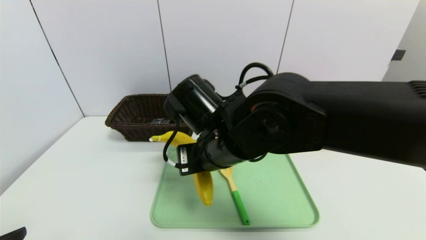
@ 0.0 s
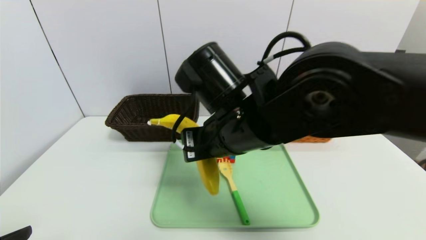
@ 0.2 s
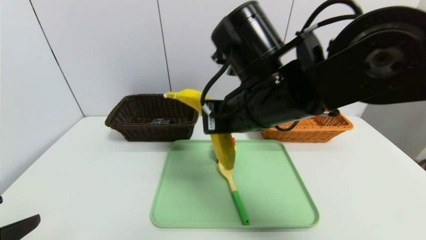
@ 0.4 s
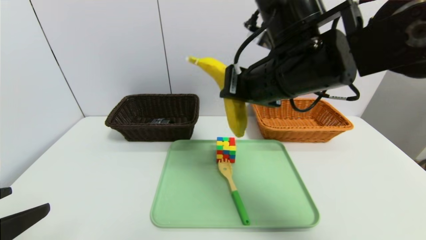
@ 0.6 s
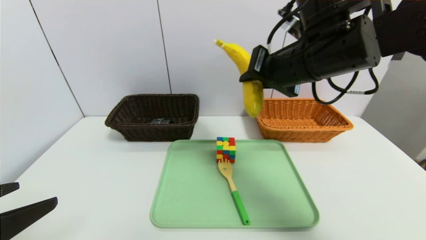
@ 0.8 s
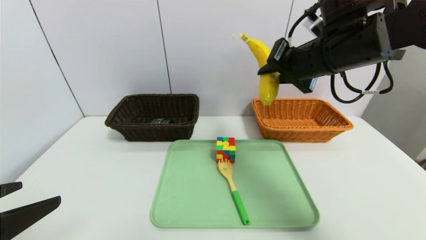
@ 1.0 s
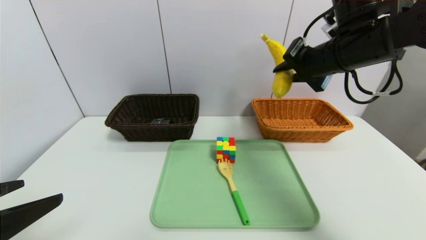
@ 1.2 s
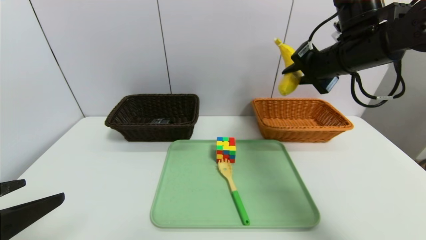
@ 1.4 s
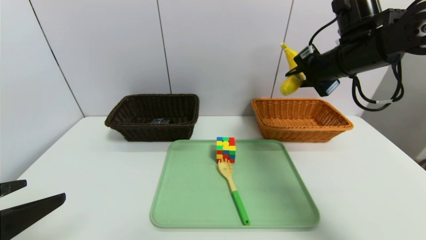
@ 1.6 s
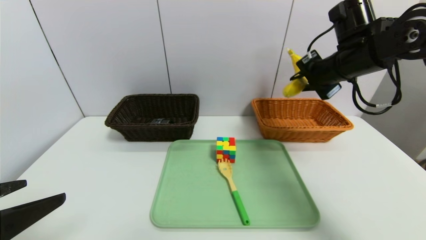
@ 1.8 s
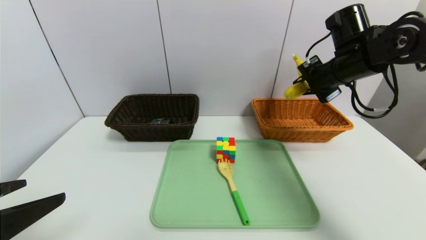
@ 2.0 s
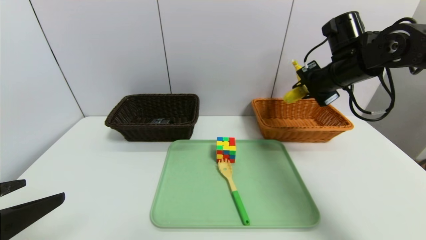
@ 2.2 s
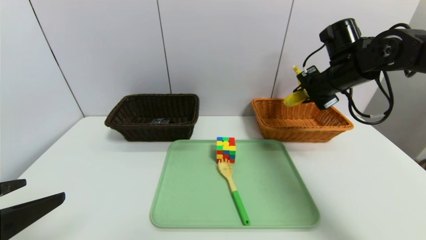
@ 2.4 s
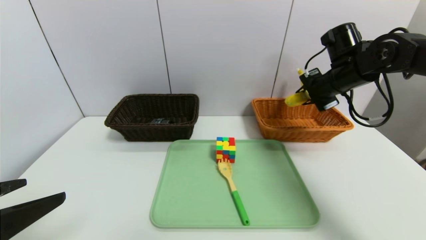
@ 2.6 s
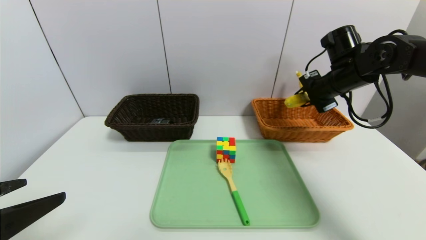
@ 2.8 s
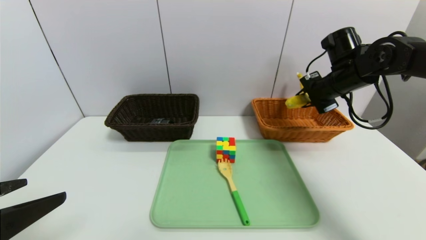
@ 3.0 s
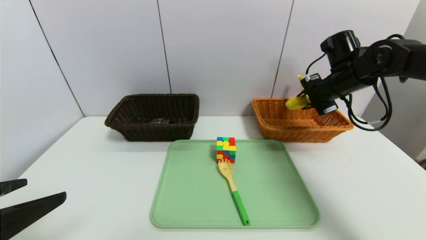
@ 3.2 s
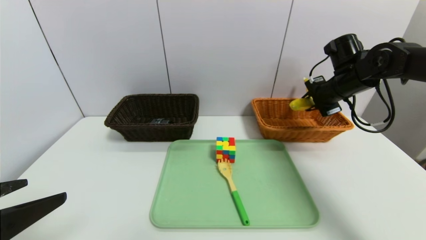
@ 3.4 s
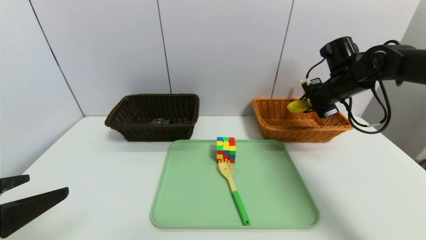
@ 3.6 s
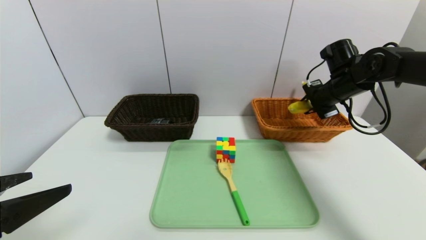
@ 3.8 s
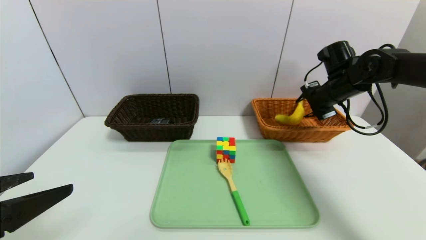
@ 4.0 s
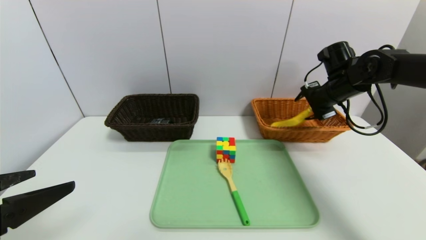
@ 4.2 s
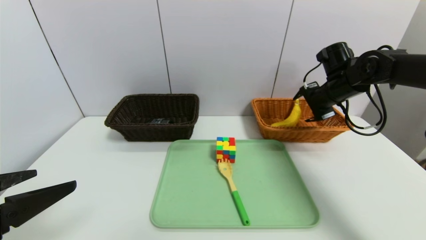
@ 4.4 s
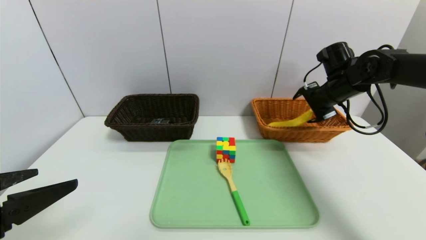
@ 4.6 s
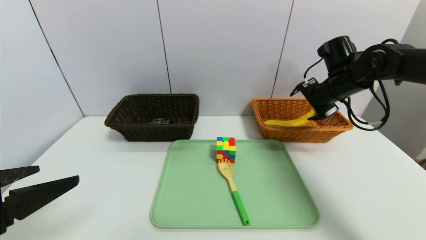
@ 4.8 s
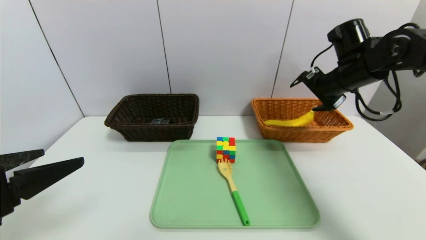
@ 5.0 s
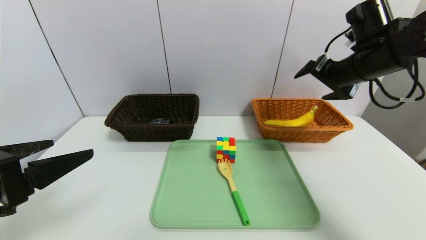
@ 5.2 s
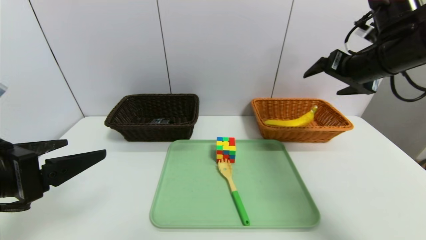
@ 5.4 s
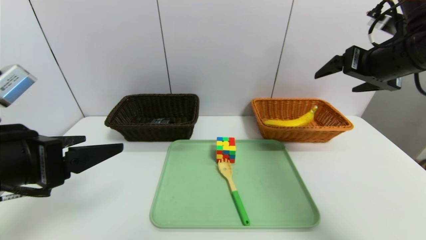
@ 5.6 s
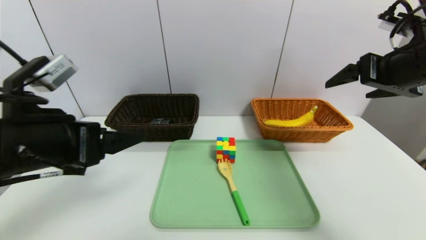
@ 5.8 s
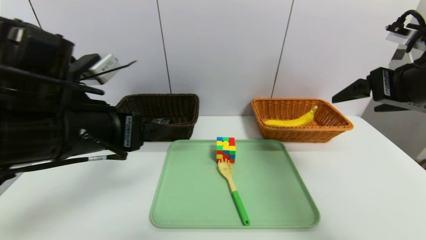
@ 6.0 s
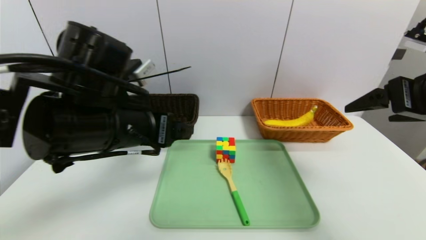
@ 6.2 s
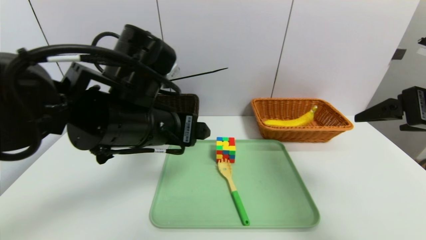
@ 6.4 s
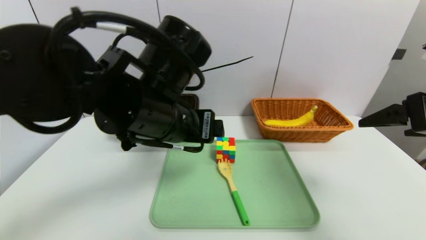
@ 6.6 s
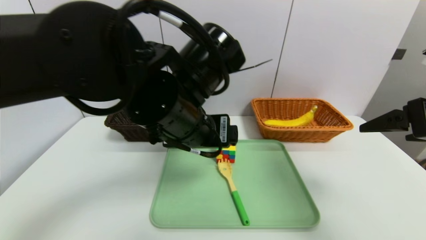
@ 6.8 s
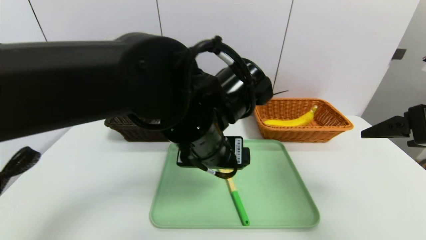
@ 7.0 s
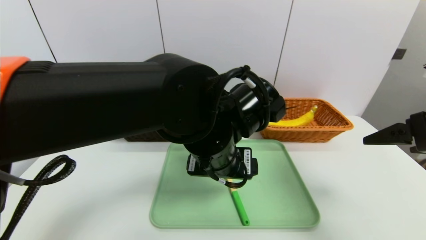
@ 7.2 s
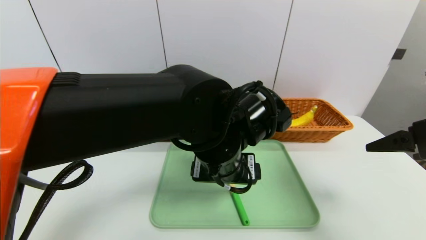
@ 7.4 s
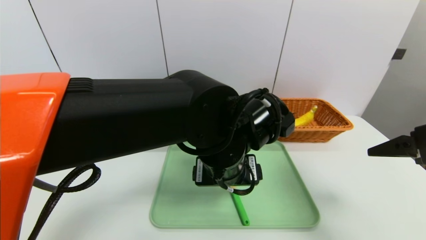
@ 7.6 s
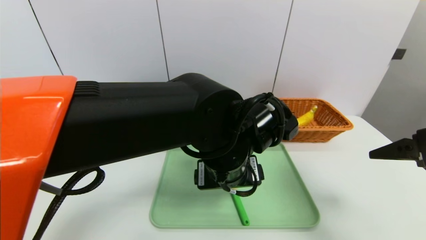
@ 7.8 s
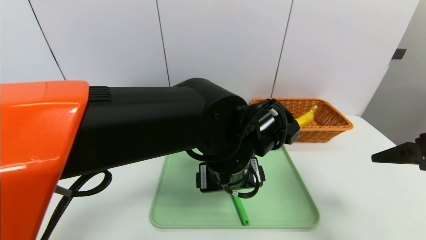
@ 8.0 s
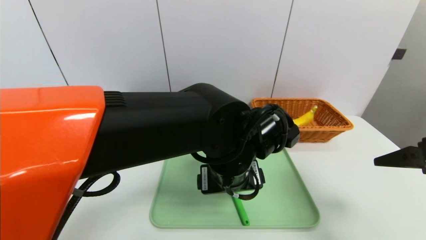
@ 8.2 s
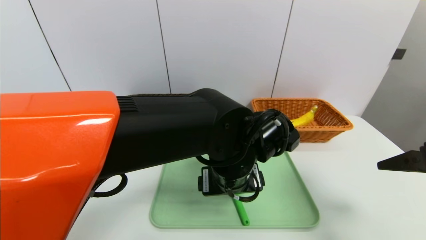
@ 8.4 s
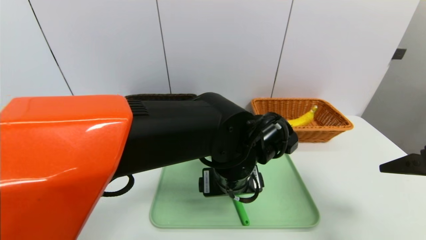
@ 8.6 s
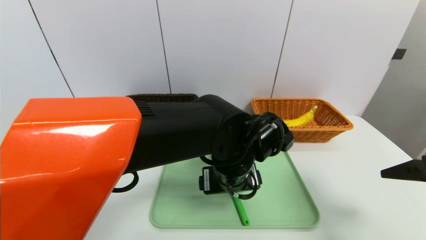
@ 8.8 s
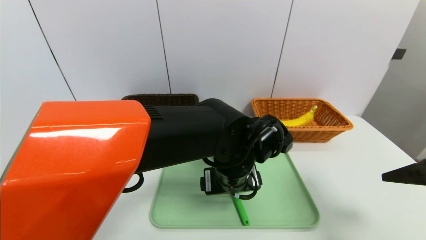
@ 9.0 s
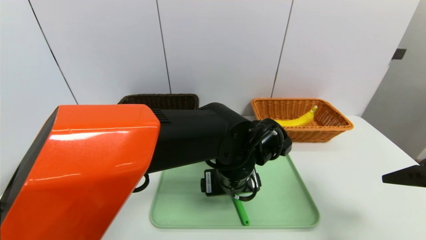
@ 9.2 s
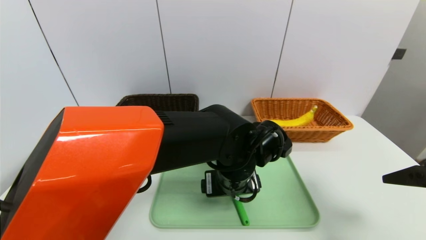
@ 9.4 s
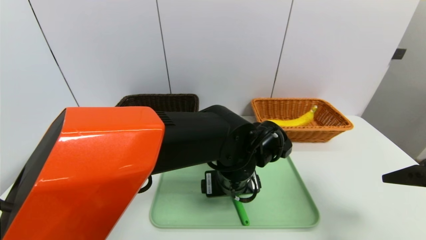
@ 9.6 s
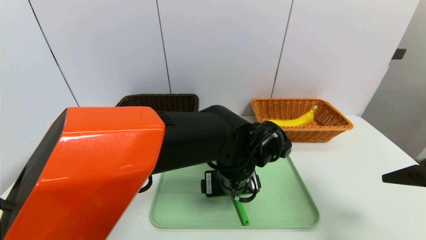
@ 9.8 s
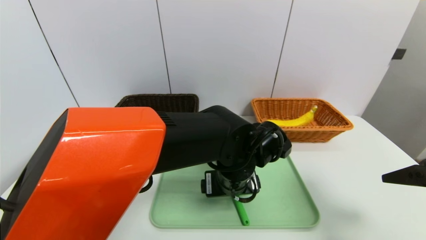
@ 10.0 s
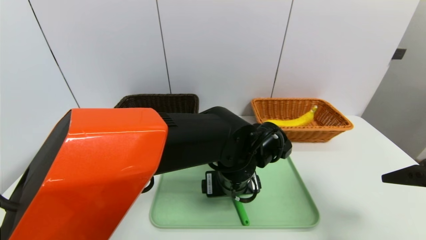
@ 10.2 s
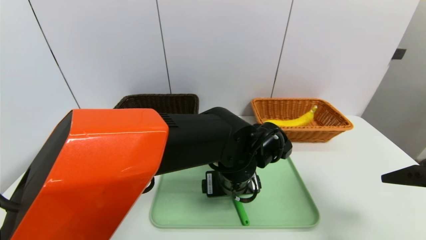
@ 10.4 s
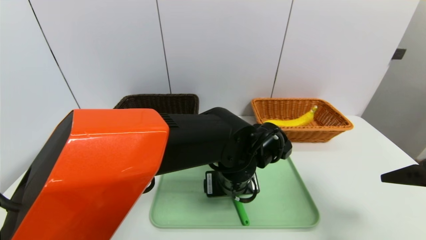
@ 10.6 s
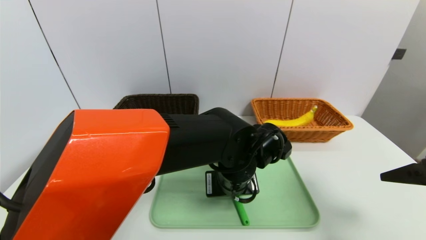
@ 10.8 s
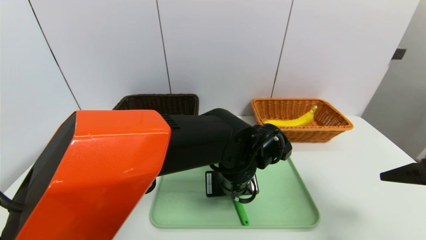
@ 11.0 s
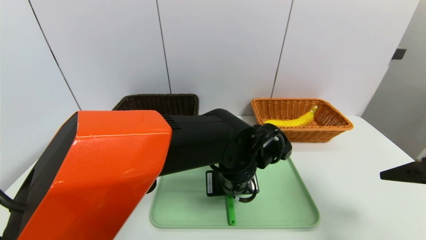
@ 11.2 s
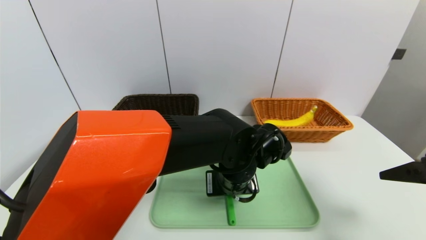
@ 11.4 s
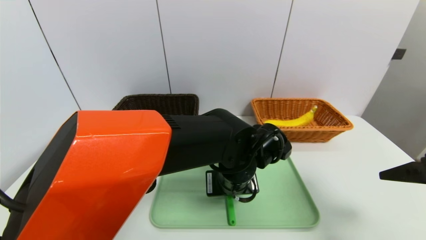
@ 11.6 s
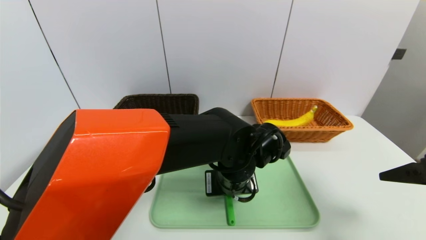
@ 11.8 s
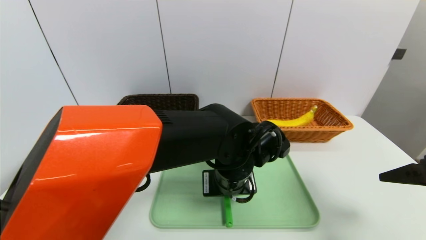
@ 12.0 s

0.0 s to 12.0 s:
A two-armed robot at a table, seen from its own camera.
Task of the whole recording: place the food in the right basket with the right gripper, and place the non food items in the left basket with the left gripper.
Step, 0.0 to 5.0 s: Grasp the banana and put it in the right basket.
0.0 to 1.6 s: The right gripper goes about 25 cm to the right and forward.
1.6 to 3.0 s: The right gripper moves downward and forward, some 10 cm.
3.0 to 4.4 s: The right gripper opens.
4.4 to 6.0 s: The right gripper goes some 20 cm backward and upward, while the left gripper moves forward and to the right, approximately 15 cm.
6.0 to 7.6 s: The left gripper is displaced to the right by about 20 cm, while the right gripper goes approximately 5 cm backward.
7.6 to 9.0 s: The left gripper ends up approximately 5 cm from where it was.
9.0 to 10.4 s: The grippers make only small movements.
10.4 to 12.0 s: The left gripper closes its fingers.

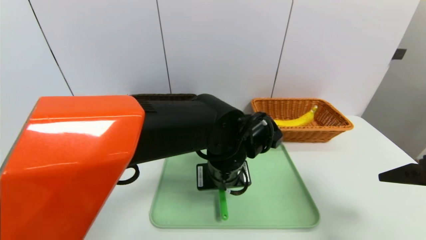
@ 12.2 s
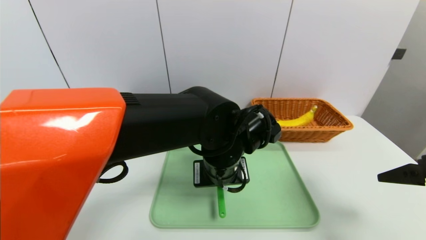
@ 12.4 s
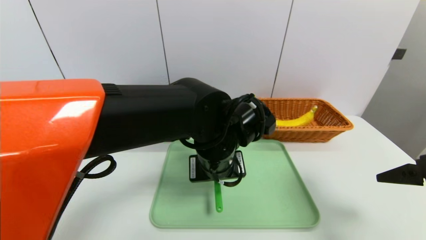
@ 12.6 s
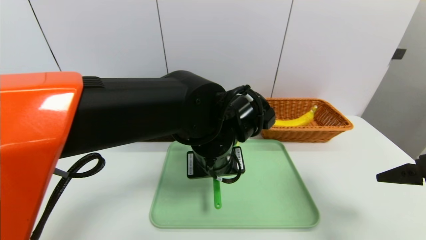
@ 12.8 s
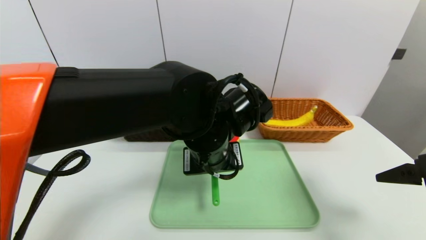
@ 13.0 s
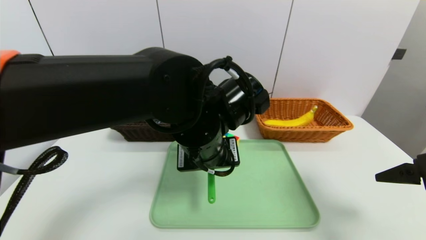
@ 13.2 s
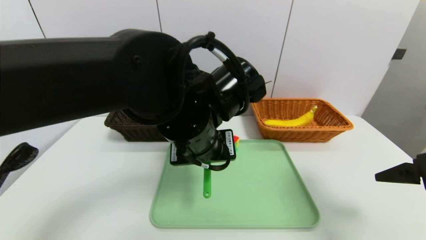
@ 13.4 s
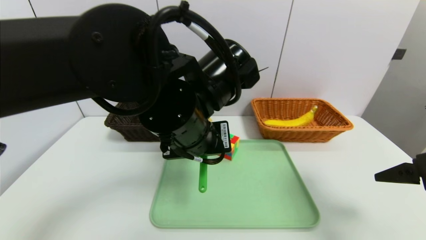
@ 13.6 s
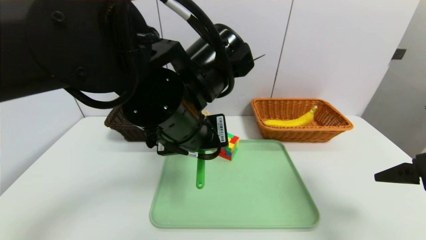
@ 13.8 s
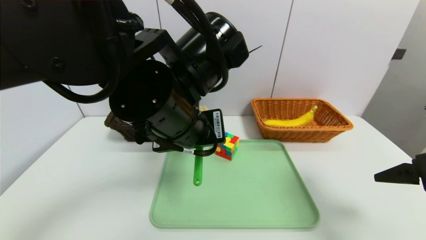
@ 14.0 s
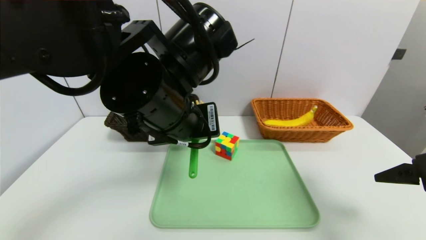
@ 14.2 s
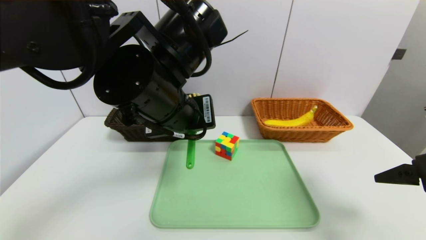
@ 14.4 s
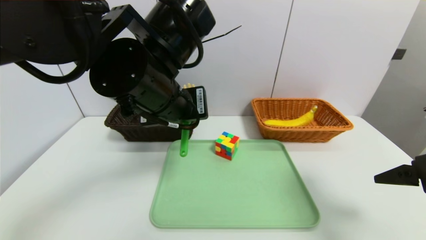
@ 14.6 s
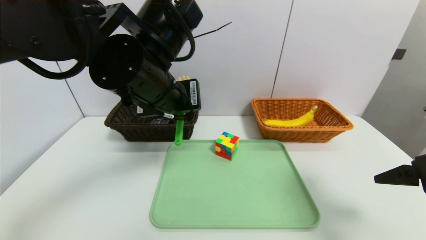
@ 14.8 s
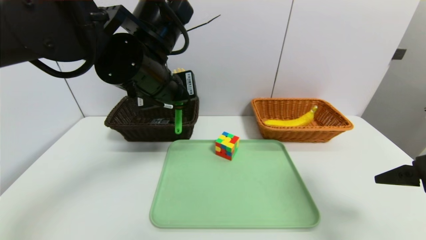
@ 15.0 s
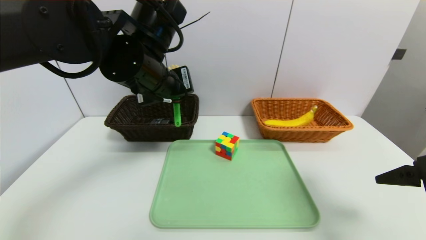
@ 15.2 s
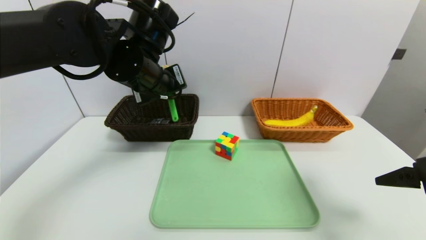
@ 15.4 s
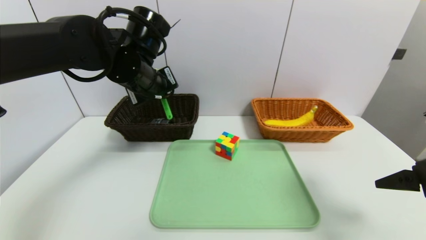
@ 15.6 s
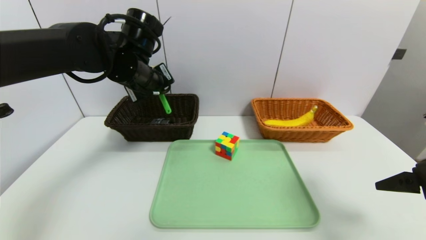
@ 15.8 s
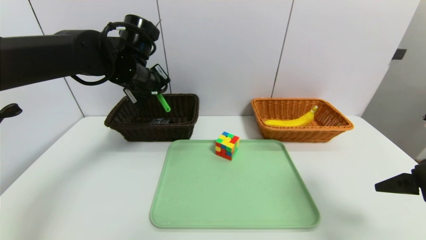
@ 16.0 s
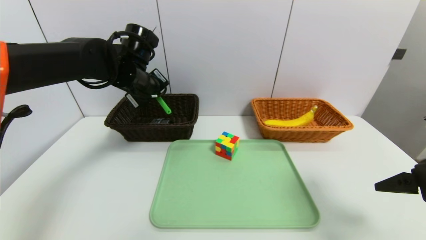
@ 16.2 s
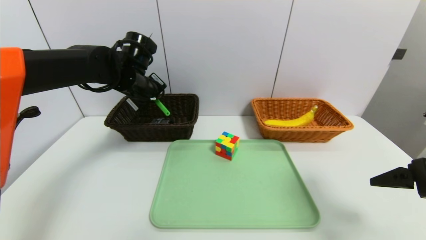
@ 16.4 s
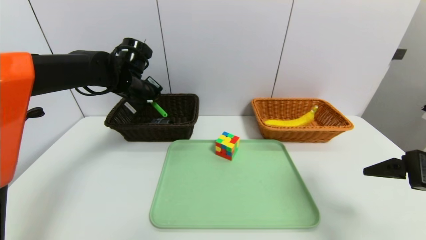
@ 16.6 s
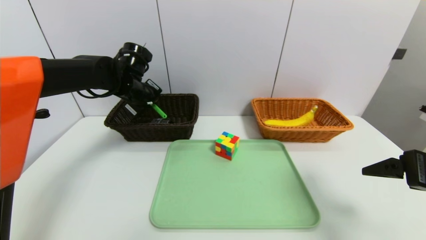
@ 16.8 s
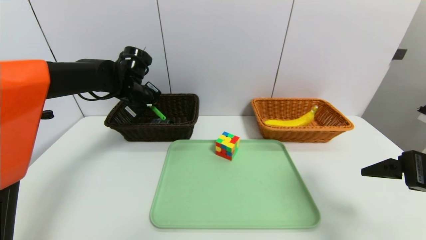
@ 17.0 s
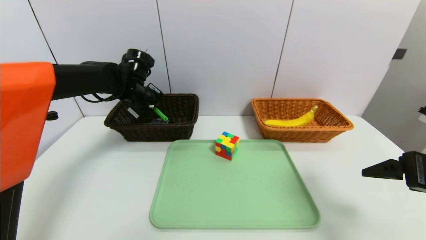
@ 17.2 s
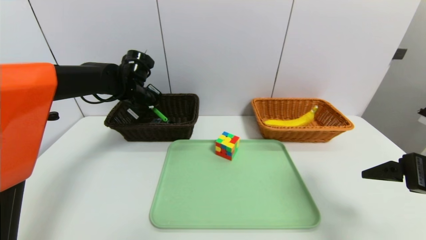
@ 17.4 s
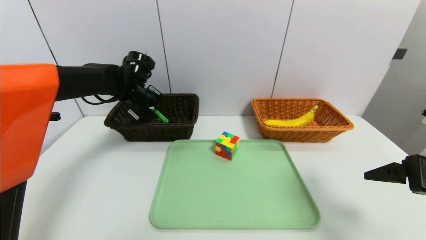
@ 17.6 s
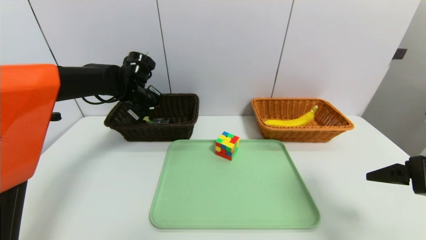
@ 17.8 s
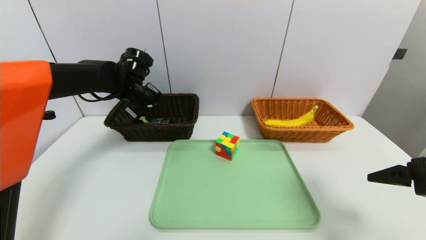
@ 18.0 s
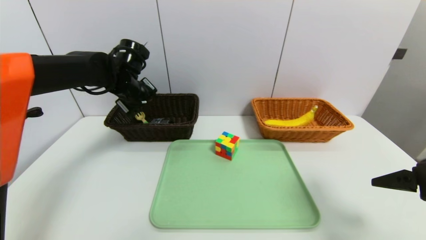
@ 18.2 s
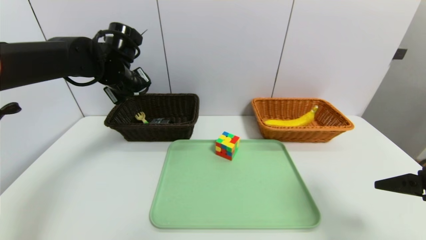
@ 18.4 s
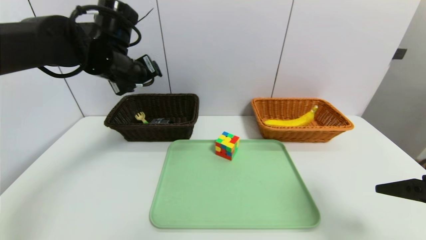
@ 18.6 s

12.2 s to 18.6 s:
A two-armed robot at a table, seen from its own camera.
Task of the whole recording: place the food in the right basket with the right gripper, and place the non food items in the left basket with the left gripper.
Step, 12.2 to 18.2 s: Grasp the back scratcher and put it in the left basket.
12.2 to 13.8 s: The left gripper heads upward and to the left, covering about 15 cm.
13.8 to 15.4 s: The left gripper goes about 15 cm forward and to the left.
15.4 to 17.0 s: The left gripper moves forward, downward and to the left, roughly 15 cm.
17.0 to 18.6 s: The left gripper shifts approximately 10 cm upward and backward, and opens.
